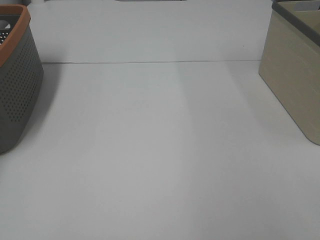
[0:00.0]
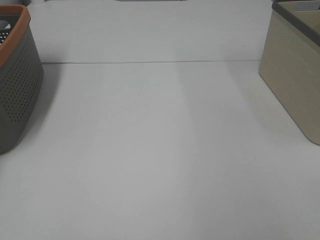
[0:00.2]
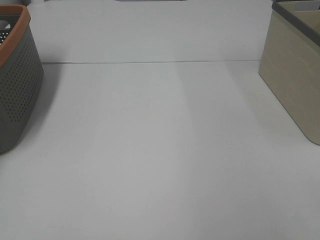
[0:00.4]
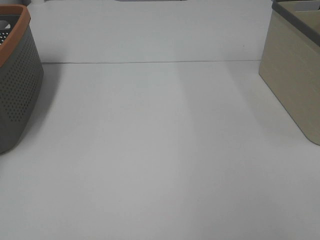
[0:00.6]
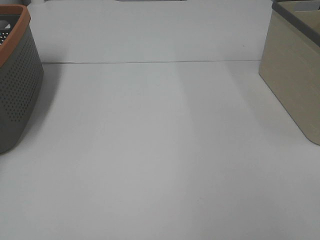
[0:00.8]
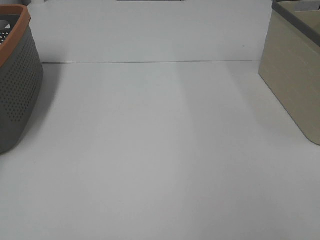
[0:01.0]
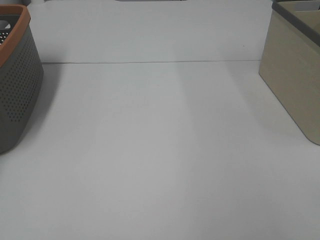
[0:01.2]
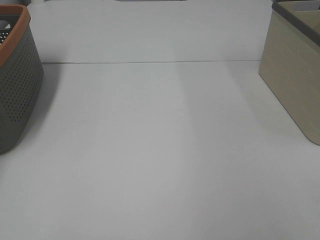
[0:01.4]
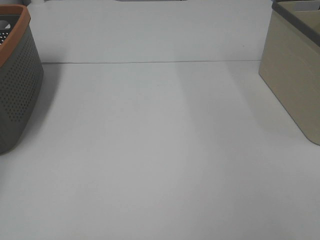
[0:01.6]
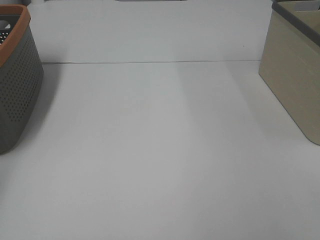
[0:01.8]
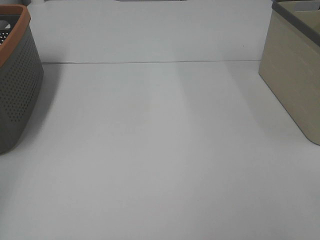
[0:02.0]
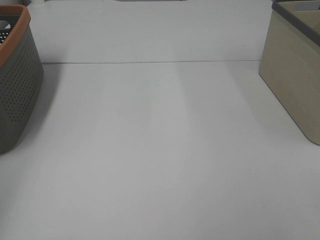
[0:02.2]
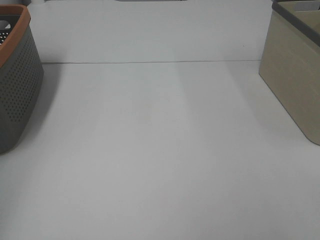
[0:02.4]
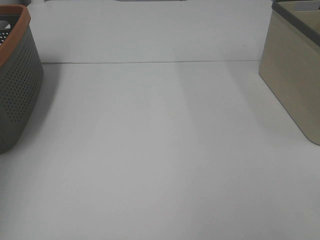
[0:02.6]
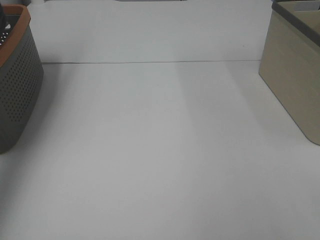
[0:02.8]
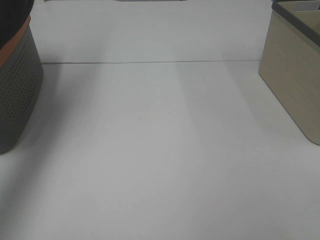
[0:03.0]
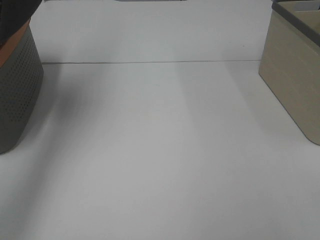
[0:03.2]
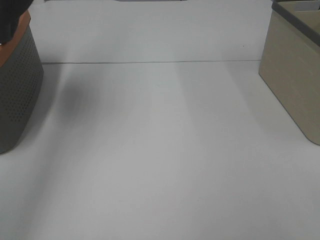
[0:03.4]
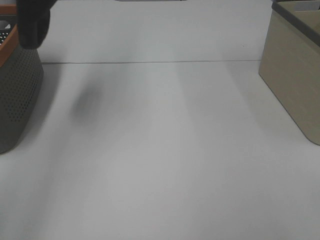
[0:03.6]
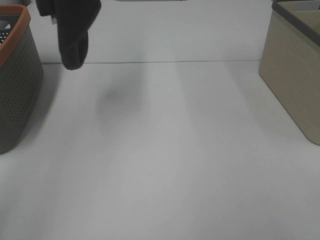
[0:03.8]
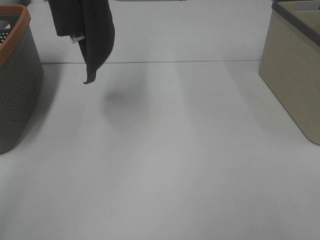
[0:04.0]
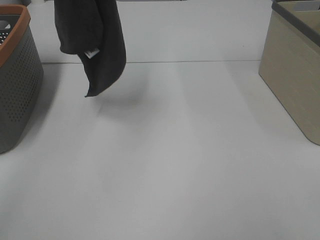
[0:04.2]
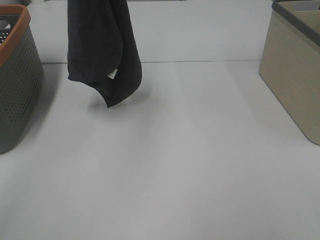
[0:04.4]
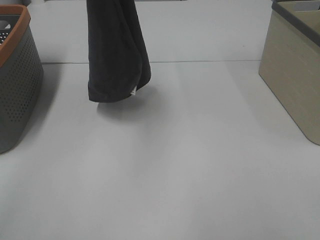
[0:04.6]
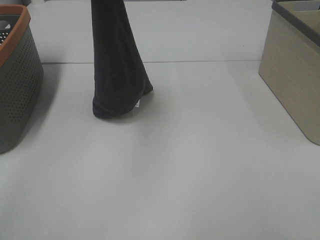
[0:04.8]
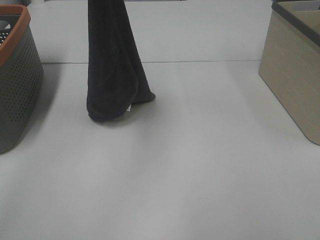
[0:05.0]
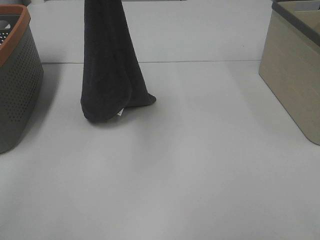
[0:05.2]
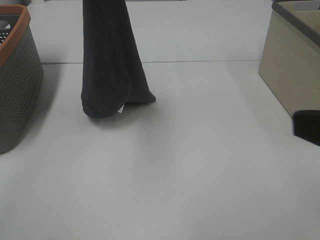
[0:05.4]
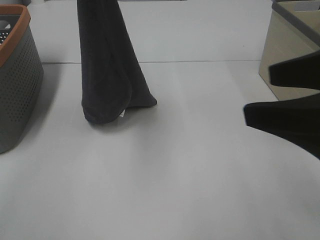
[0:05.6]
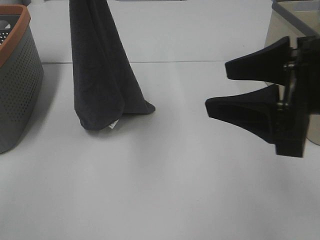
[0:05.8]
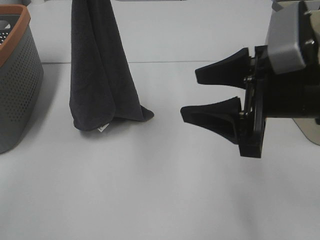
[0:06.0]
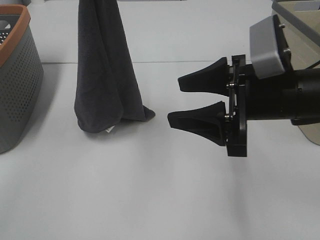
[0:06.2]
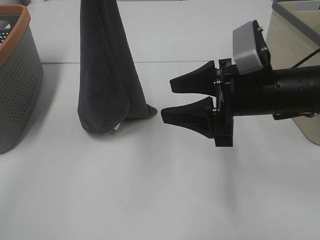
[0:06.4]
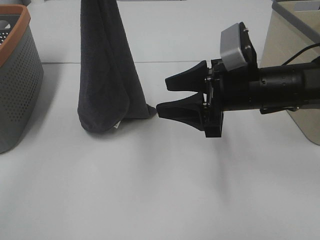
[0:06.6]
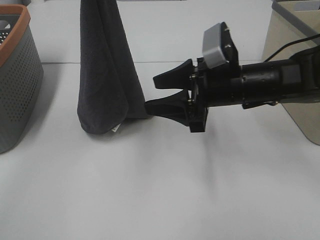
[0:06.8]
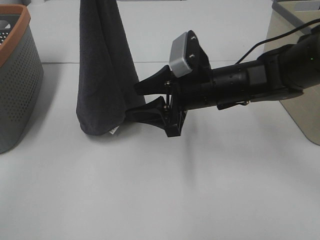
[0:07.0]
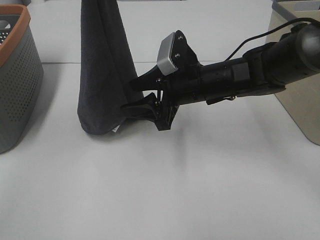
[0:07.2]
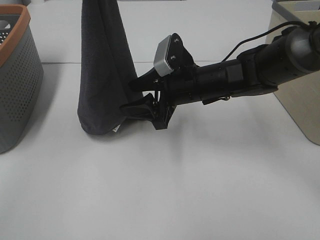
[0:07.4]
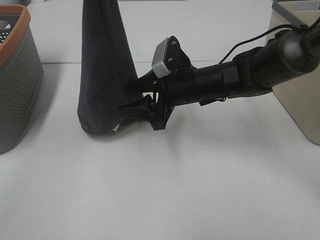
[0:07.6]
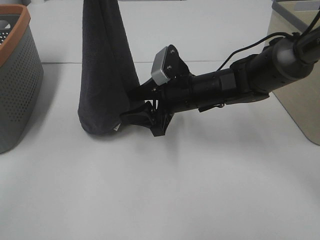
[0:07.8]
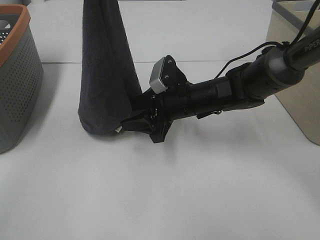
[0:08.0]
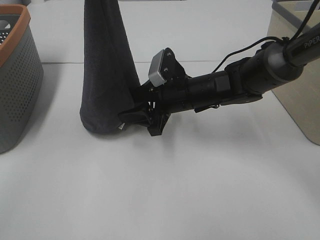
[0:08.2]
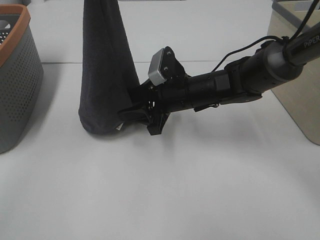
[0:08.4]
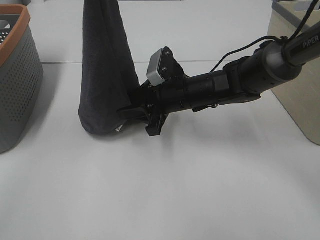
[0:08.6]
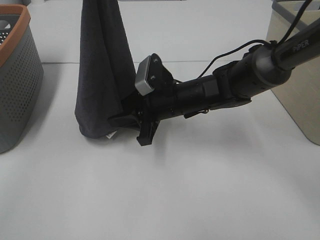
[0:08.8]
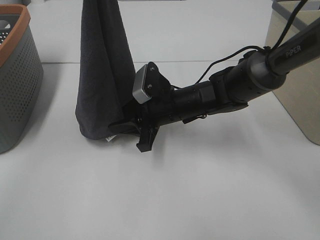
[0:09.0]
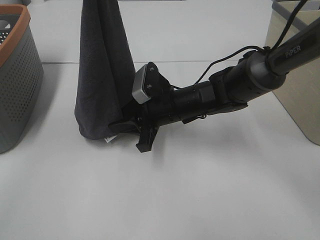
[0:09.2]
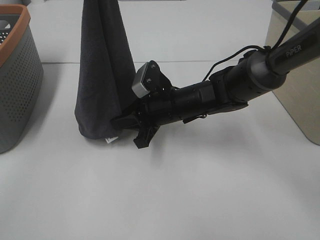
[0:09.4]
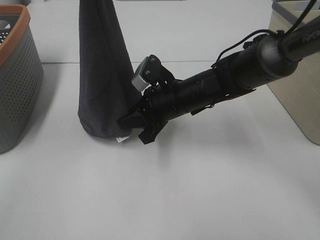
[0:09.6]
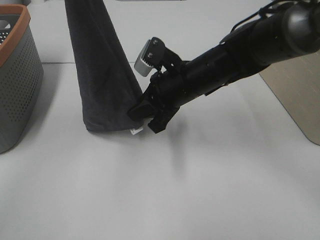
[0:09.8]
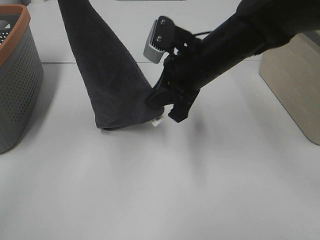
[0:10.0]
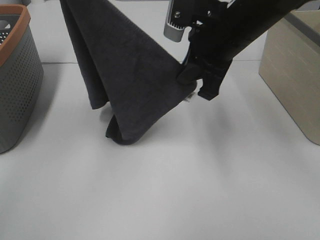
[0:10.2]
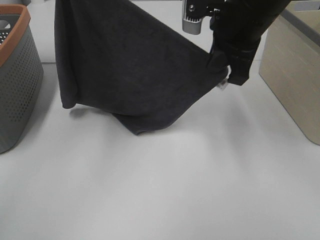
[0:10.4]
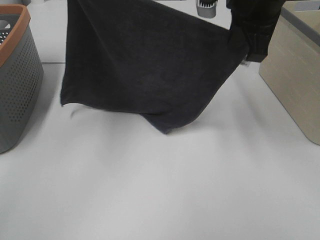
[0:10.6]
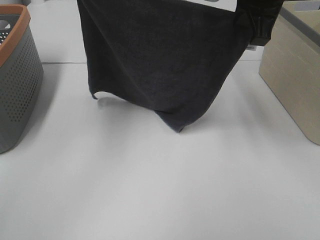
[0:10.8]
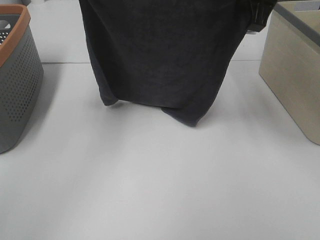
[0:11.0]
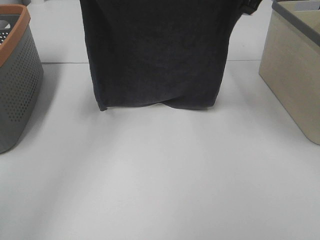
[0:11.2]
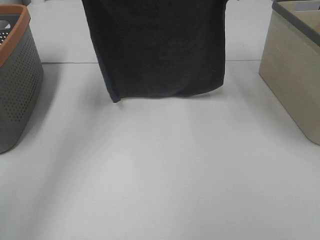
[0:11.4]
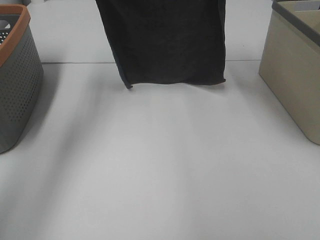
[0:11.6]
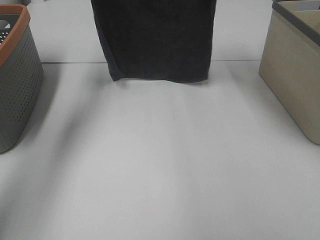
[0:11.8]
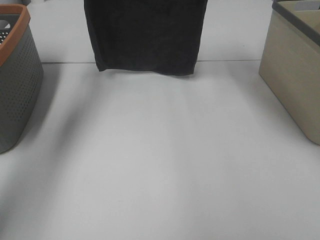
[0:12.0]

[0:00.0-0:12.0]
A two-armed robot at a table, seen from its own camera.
Task of the whole recording: Remove the towel and place it.
Step, 3.8 to 7.4 s: Right hand: grab a corner of the grey towel and straighten it.
Step, 7.6 to 10.2 s: Left hand: spread the grey towel flat on the table.
Step, 7.6 to 10.2 s: Right hand: spread the grey towel flat on the table.
1.6 to 3.0 s: The left gripper shifts approximately 35 cm upward, to the right and backward.
3.0 to 4.4 s: The left gripper shifts approximately 20 cm to the right and downward.
4.4 to 6.0 s: The right gripper moves forward and to the left, roughly 25 cm; the left gripper goes approximately 5 cm downward.
6.0 to 7.6 s: The right gripper shifts some 20 cm forward, to the left and downward.
7.6 to 9.0 s: The grippers move only a little.
9.0 to 10.4 s: The right gripper goes approximately 20 cm upward, and closes up. Meanwhile the left gripper shifts roughly 10 cm to the left and forward.
10.4 to 12.0 s: The left gripper goes approximately 15 cm forward and downward, while the right gripper travels forward by approximately 15 cm.

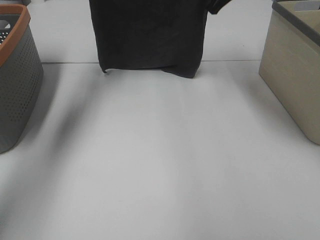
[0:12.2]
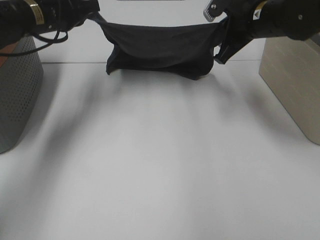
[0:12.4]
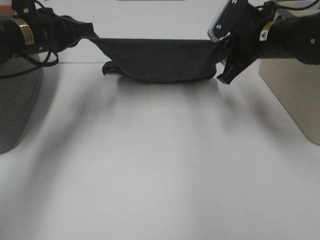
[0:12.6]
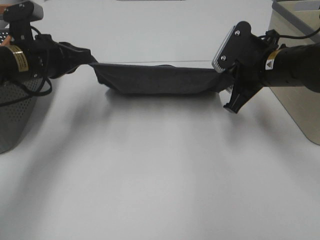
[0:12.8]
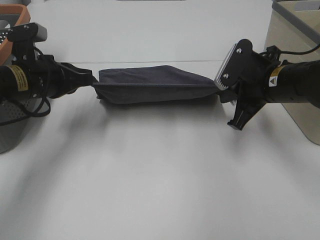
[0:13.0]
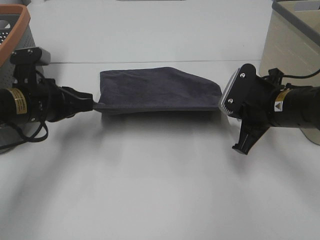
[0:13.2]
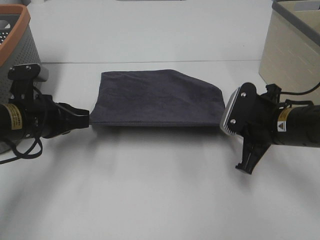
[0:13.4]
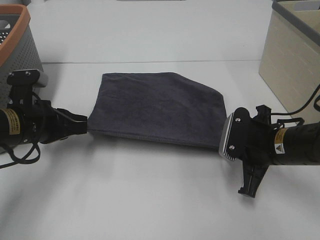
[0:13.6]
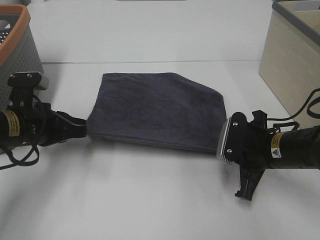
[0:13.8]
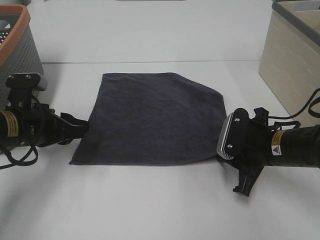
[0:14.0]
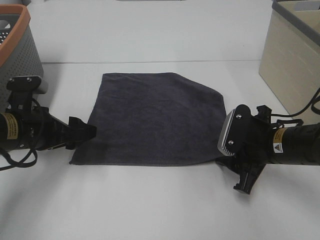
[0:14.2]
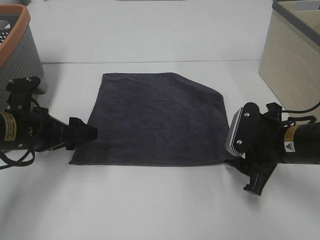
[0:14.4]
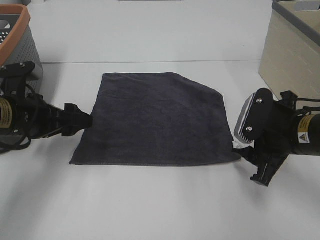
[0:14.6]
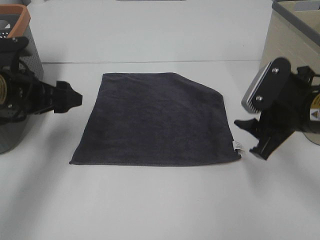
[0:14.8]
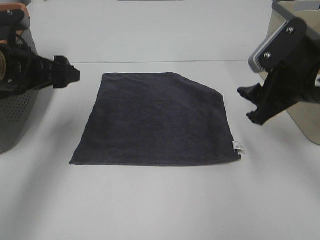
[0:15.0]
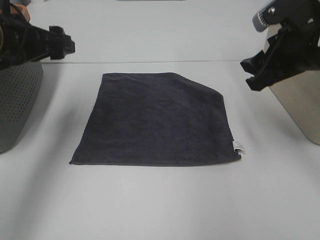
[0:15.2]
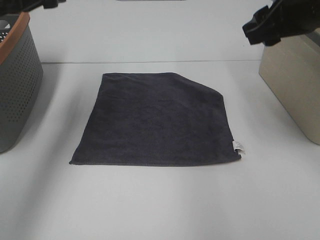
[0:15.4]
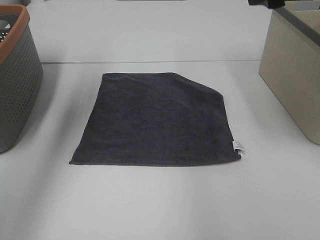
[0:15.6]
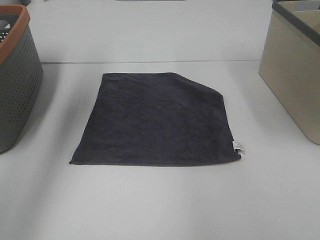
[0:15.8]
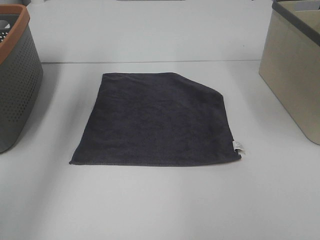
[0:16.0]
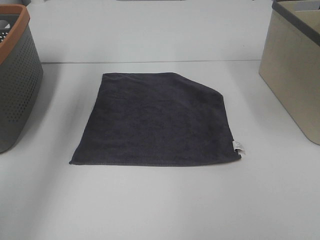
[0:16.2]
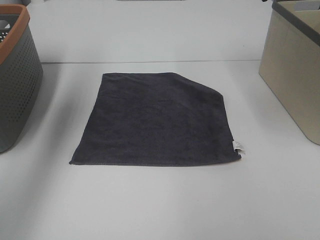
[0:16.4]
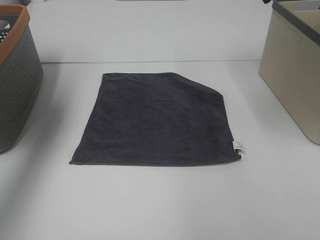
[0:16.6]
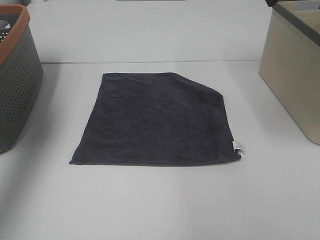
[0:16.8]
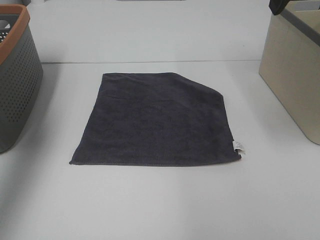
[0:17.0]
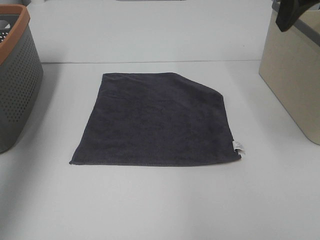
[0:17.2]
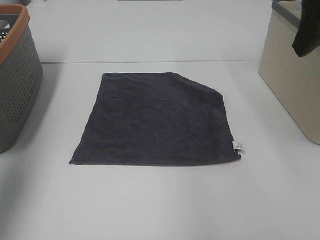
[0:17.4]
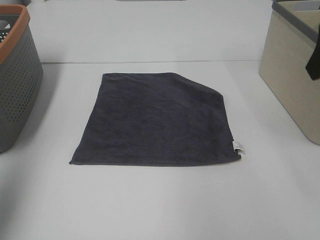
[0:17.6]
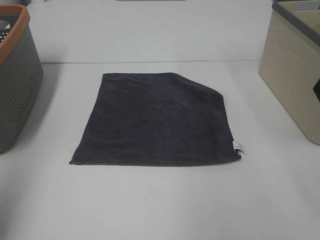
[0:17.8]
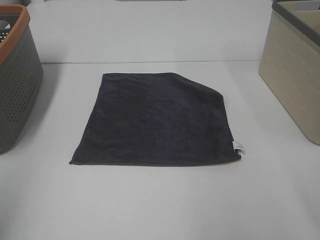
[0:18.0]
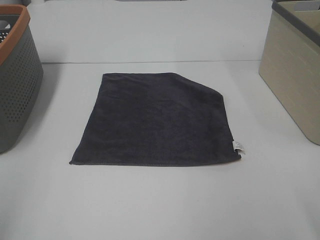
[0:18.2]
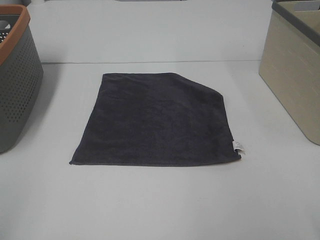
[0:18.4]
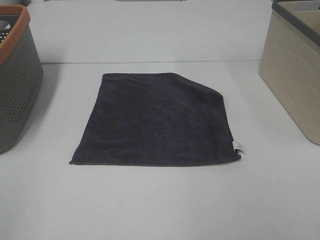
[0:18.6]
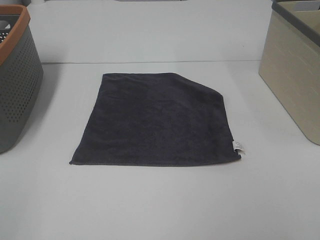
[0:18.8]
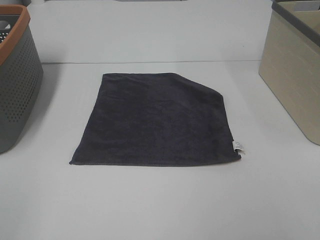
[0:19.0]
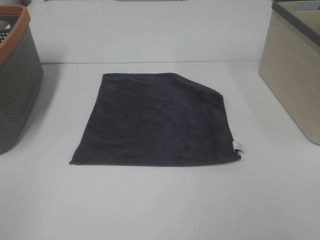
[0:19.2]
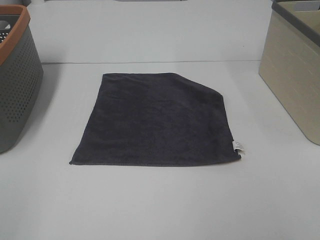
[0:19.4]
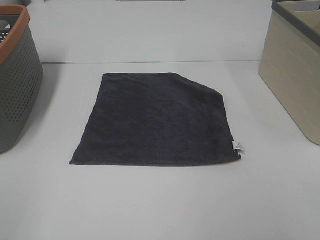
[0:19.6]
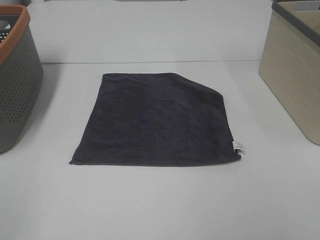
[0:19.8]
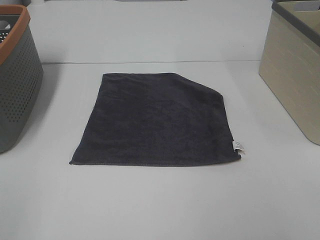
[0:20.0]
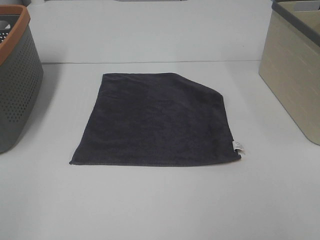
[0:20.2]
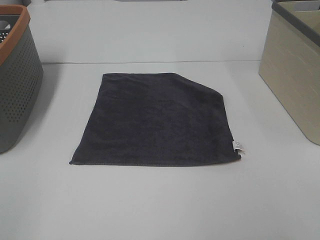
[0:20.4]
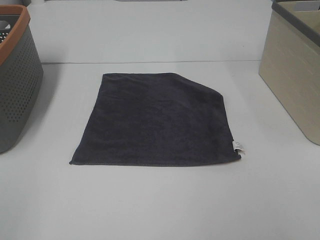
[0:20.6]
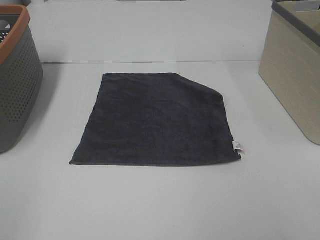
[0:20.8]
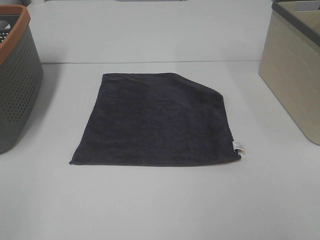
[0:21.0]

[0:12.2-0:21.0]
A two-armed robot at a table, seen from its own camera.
Task of the whole recording: Remove the towel and place it.
12.2 to 13.6 s: Both grippers move backward and downward, roughly 25 cm.
13.6 to 15.2 s: The right gripper moves upward, some 15 cm, and opens its fingers. The left gripper shifts roughly 15 cm upward and forward, and opens up.
15.2 to 16.6 s: The left gripper moves upward and to the left, some 20 cm. Meanwhile the right gripper shifts approximately 15 cm upward and forward.
16.6 to 18.0 s: Both grippers travel together backward, some 25 cm.
19.6 to 21.0 s: Neither gripper changes place.

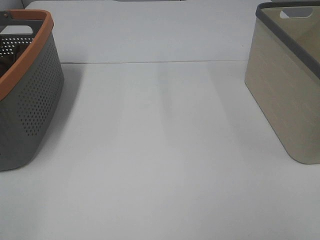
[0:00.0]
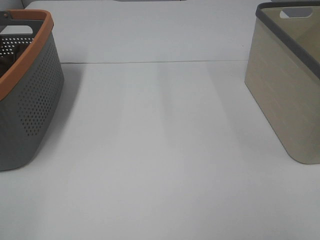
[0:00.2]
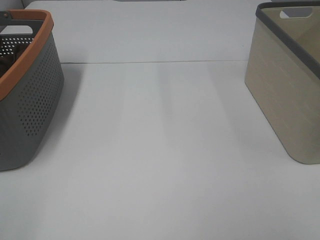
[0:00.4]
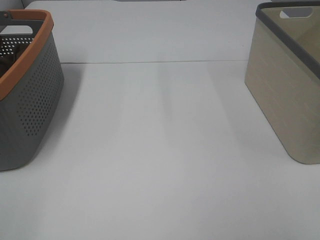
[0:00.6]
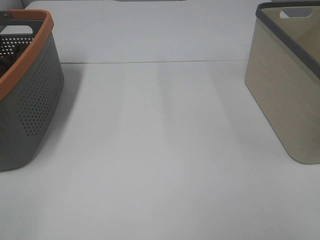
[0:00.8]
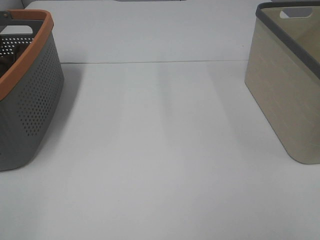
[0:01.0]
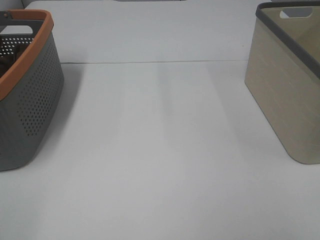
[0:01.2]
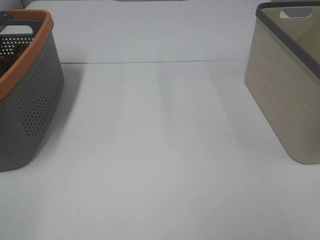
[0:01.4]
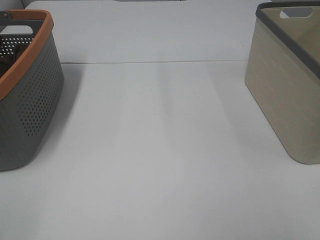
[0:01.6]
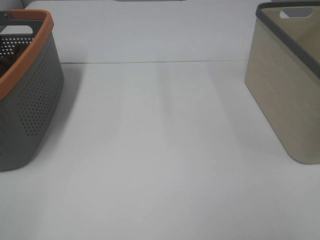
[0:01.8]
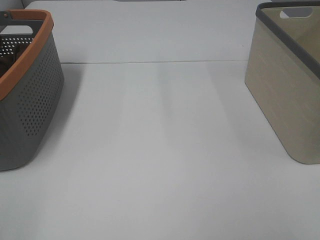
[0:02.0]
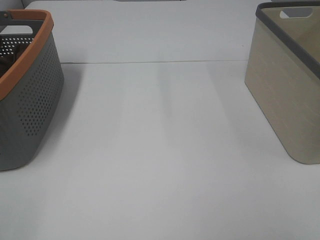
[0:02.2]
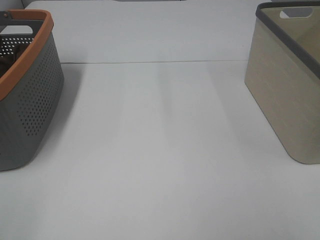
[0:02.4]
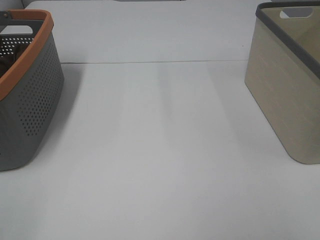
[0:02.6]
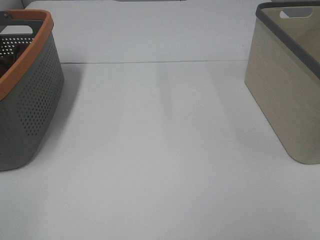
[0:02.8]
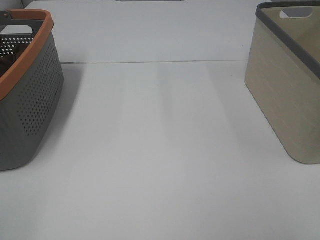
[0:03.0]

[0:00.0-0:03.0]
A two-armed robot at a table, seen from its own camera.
Task of the whole recording: Remove the towel and place it.
0.0 to 3.0 s: The two grippers keep their place.
